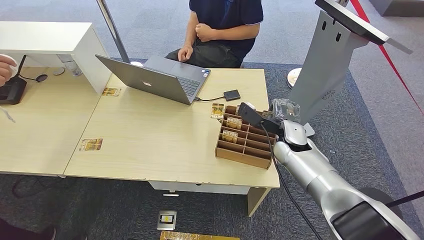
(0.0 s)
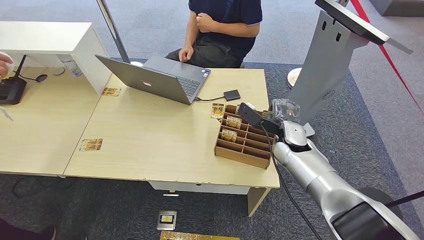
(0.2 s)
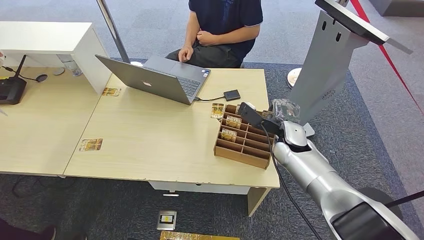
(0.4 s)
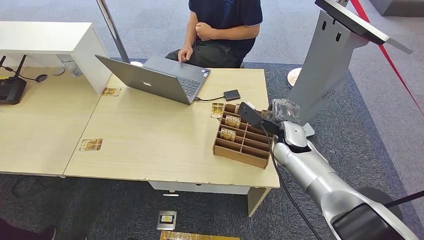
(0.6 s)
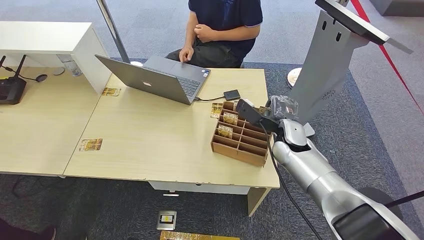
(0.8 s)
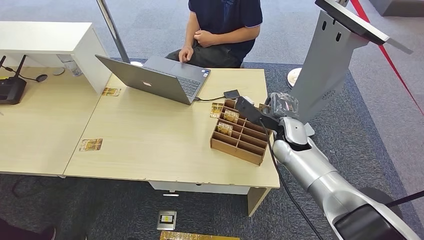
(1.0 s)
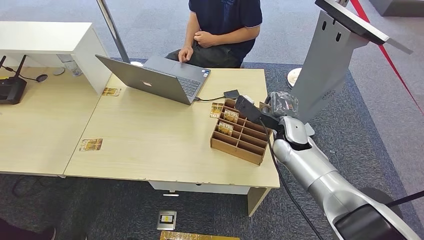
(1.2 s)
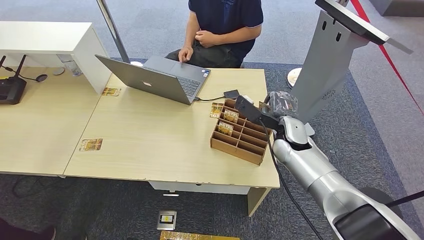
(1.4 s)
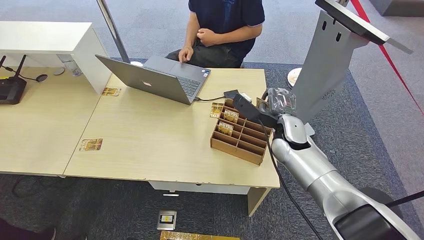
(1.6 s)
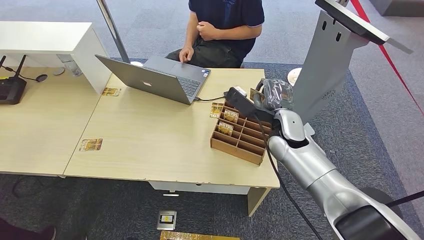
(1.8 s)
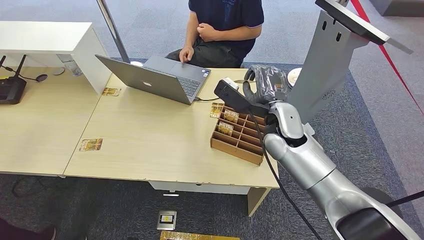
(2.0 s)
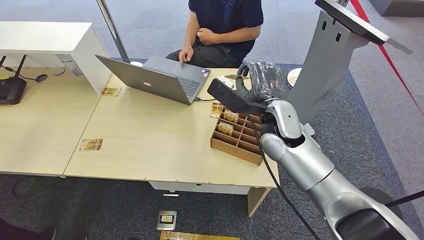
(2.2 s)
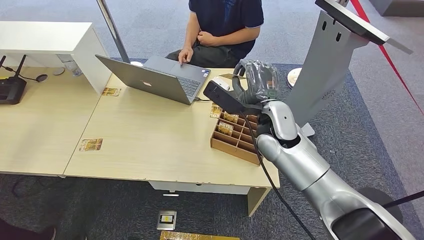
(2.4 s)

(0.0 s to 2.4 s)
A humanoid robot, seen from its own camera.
Step, 0.0 s - 2.4 s: Pick up the key card from the card box.
0.0 s - 1.2 s: The hands make only small movements.
1.2 s - 2.4 s: The right hand goes roughly 10 cm upward and to the left.
